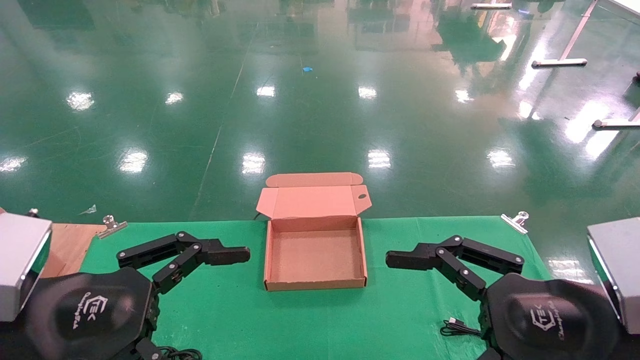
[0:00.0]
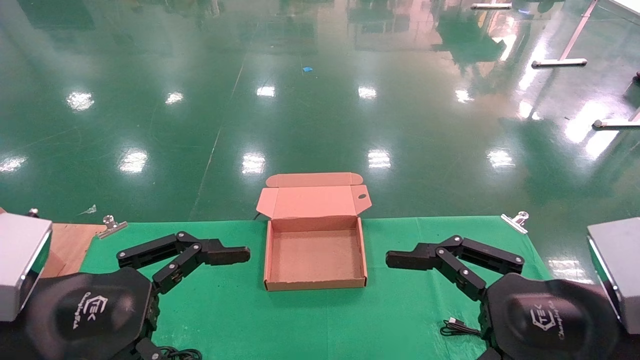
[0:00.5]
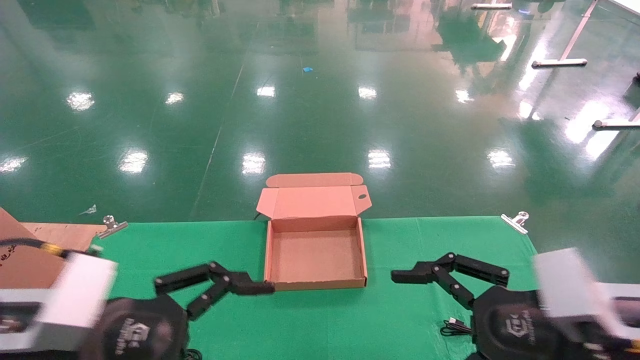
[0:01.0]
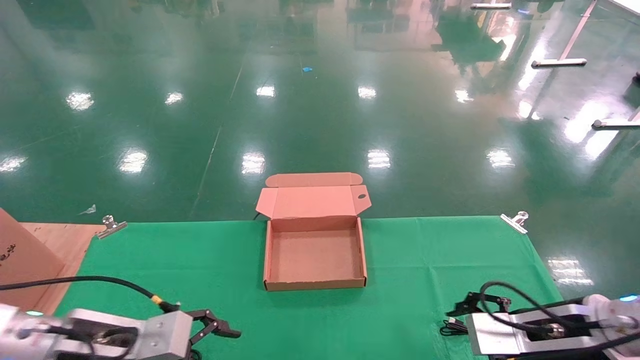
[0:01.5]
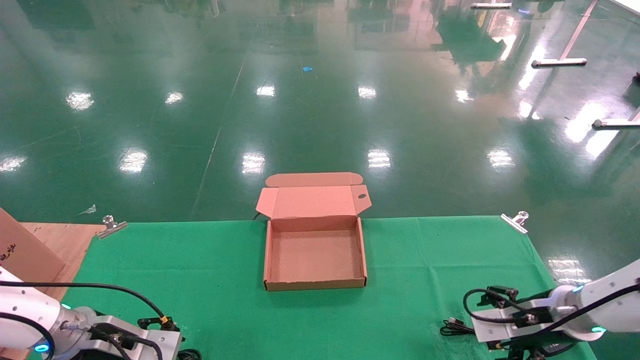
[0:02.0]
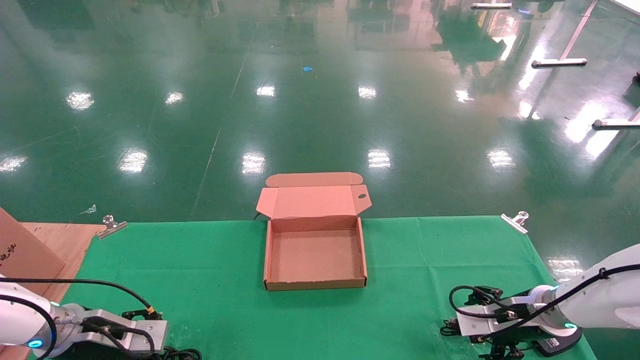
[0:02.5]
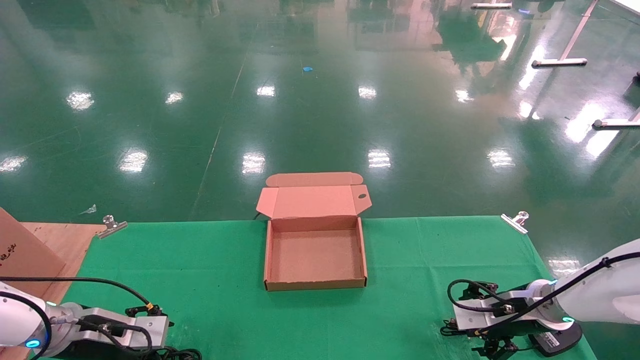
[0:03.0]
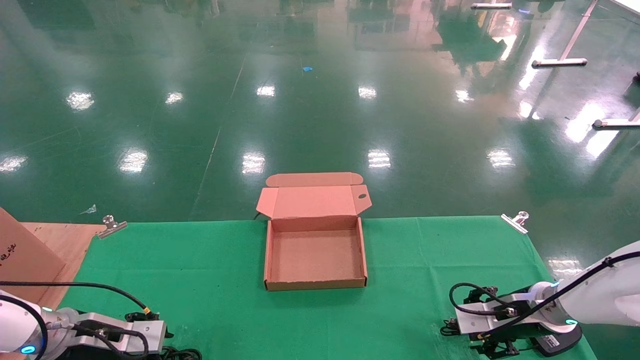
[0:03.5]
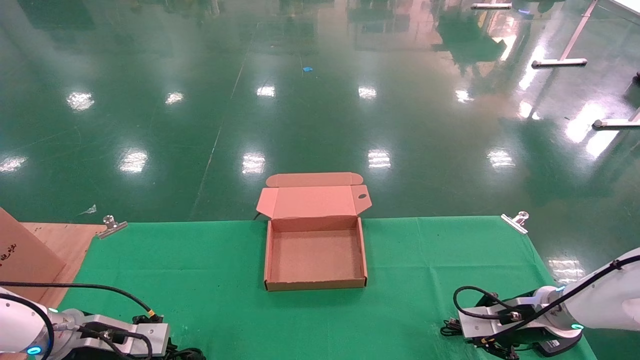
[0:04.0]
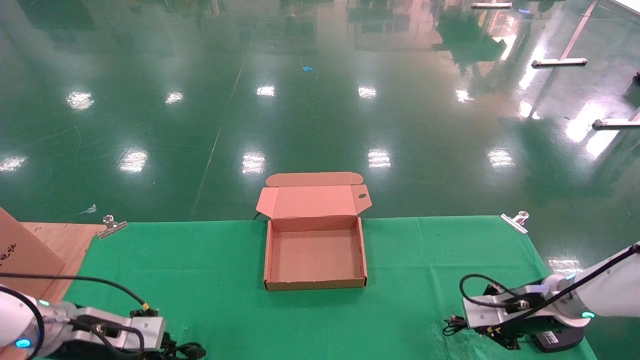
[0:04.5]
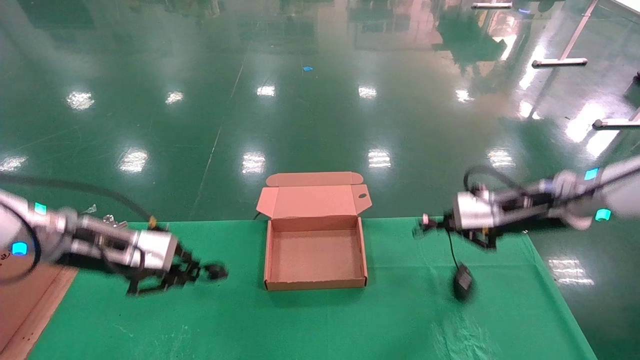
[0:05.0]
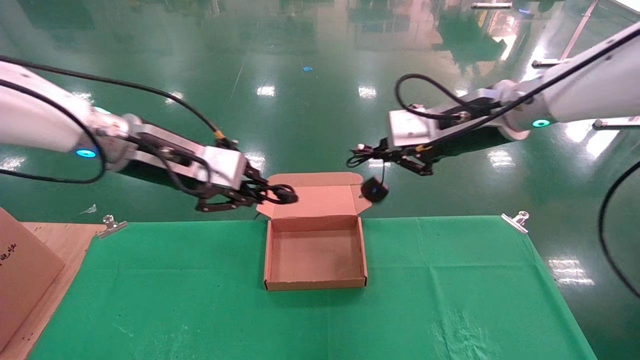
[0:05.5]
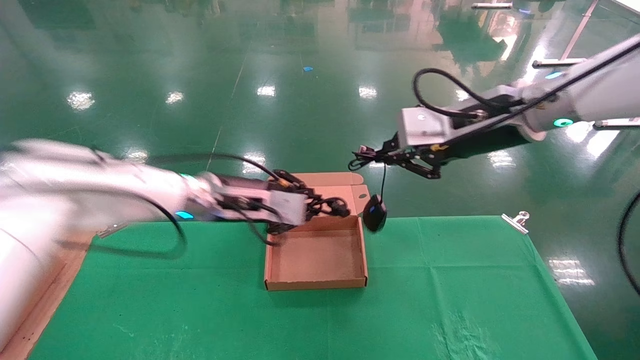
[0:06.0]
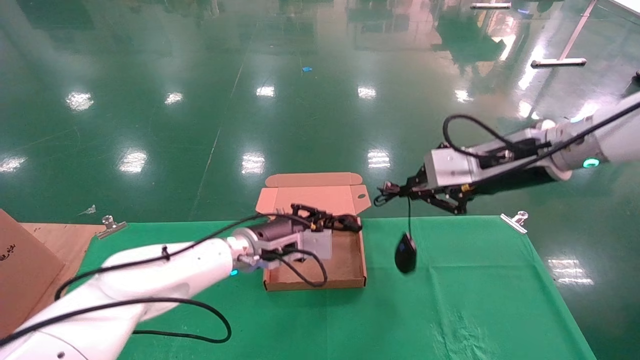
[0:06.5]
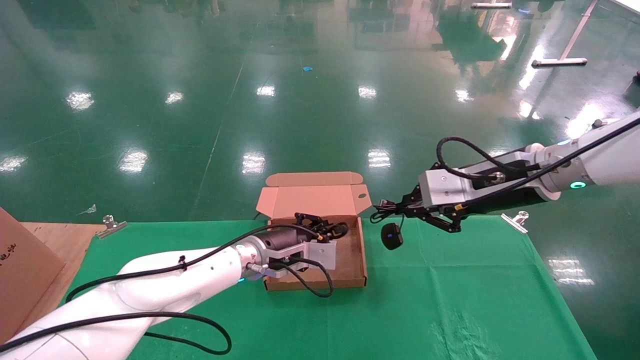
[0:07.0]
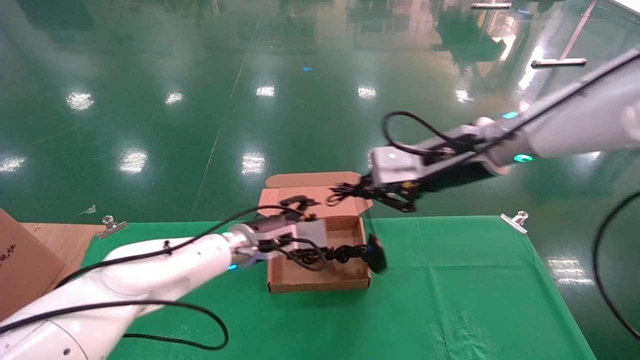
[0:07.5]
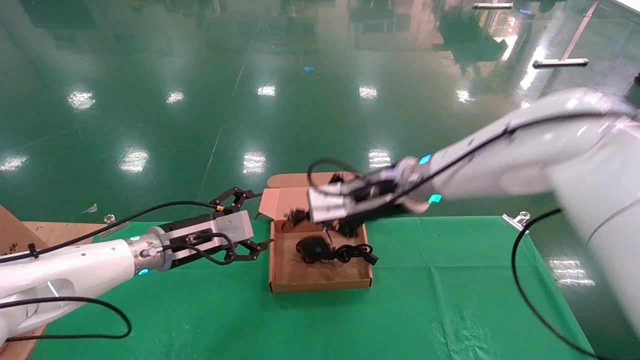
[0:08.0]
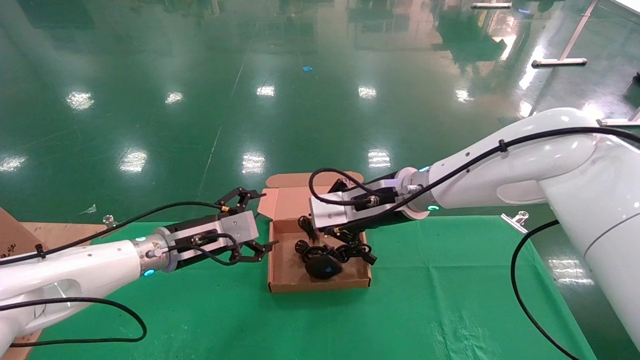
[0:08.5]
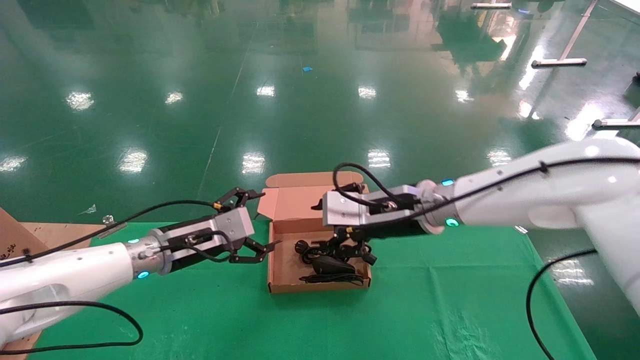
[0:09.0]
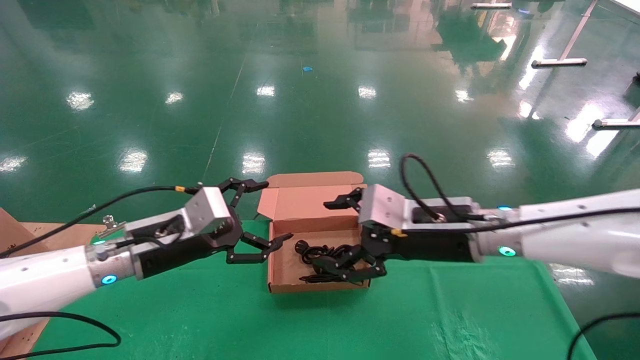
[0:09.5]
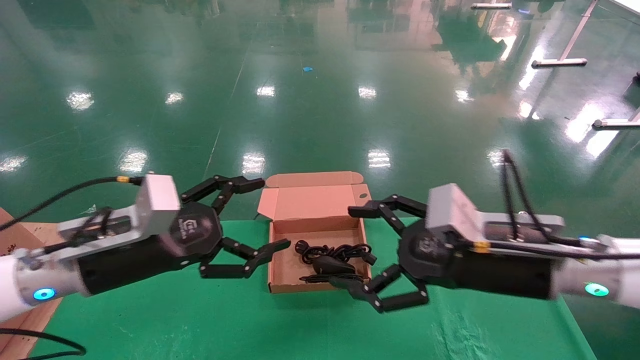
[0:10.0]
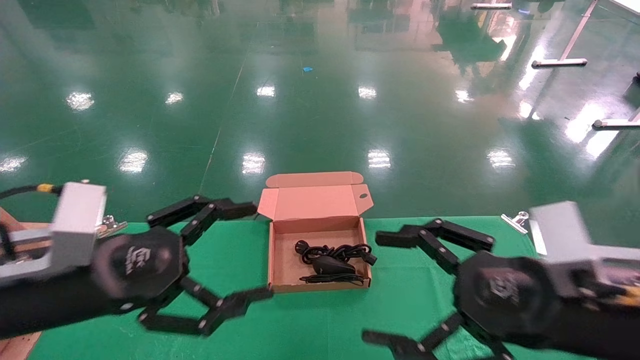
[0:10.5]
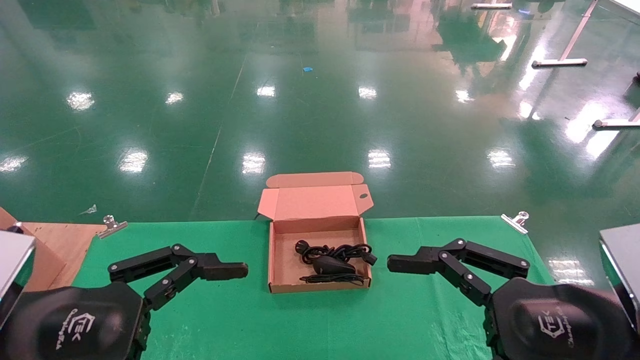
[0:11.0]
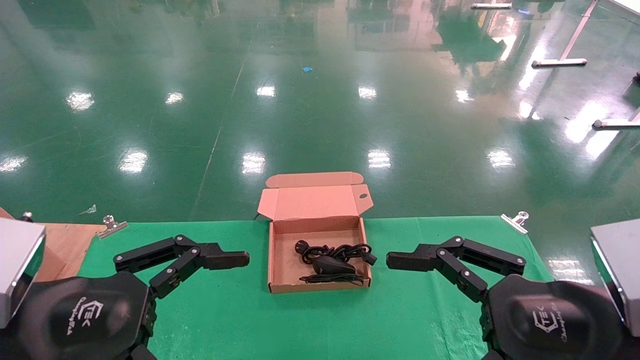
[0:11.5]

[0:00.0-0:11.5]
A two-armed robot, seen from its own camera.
Step, 0:02.0 to 0:04.5: Grab and lift both the mouse and power cord from the accessory packaging area at the same time.
Step, 0:05.0 to 0:10.0: Place the mouse and power cord into the box.
0:00.0 to 0:02.0: The two grippers go about 25 cm forward and downward.
0:02.0 to 0:04.0: The right gripper closes up, while the left gripper closes.
0:04.0 to 0:06.0: The left gripper is displaced to the right and upward by roughly 30 cm. Meanwhile the right gripper heads upward, covering approximately 30 cm.
0:06.0 to 0:07.5: The right gripper ends up approximately 5 cm from where it was; the left gripper shifts about 10 cm downward, and opens.
0:07.5 to 0:09.5: The left gripper moves to the left and backward, roughly 15 cm, and opens; the right gripper travels downward by approximately 10 cm, and opens its fingers.
0:09.5 to 0:11.5: The right gripper heads backward and to the right, covering roughly 20 cm, while the left gripper moves backward, roughly 20 cm.
